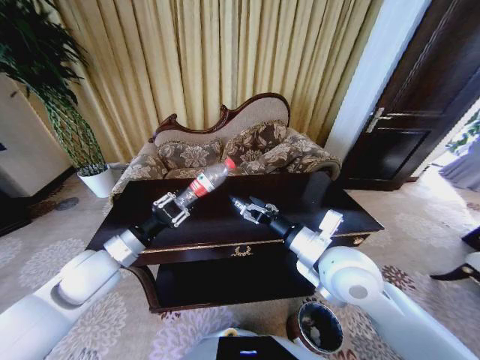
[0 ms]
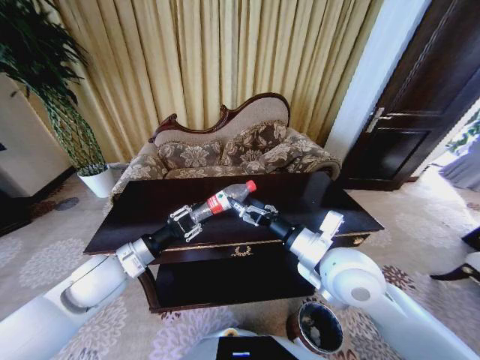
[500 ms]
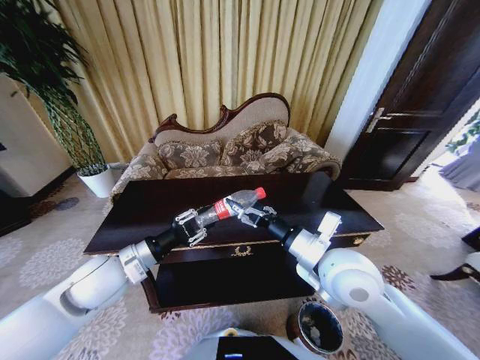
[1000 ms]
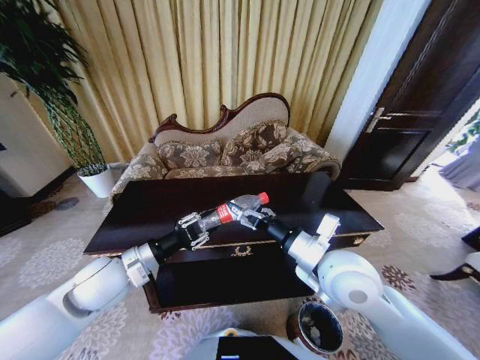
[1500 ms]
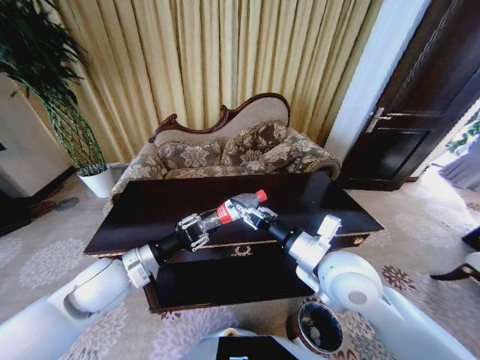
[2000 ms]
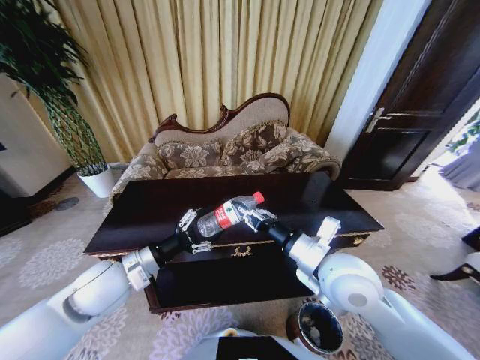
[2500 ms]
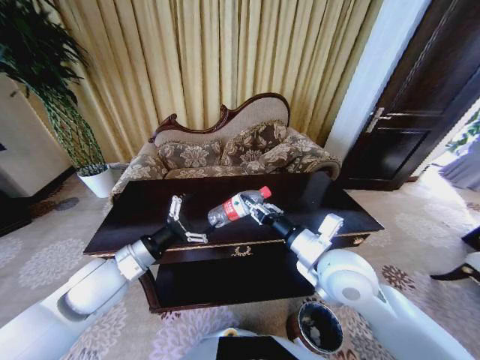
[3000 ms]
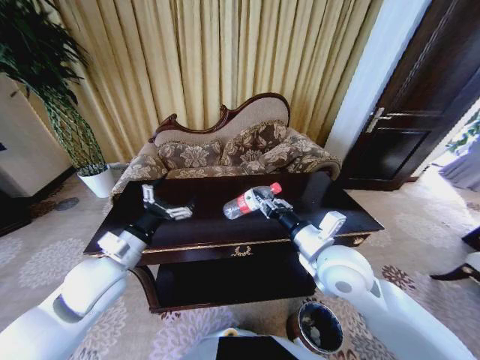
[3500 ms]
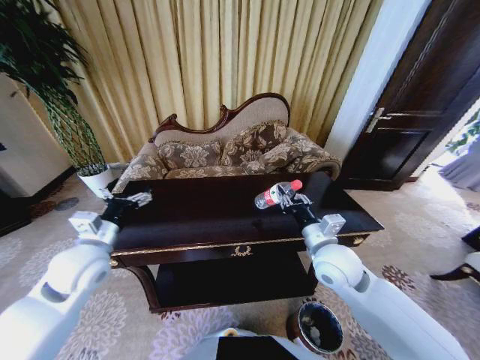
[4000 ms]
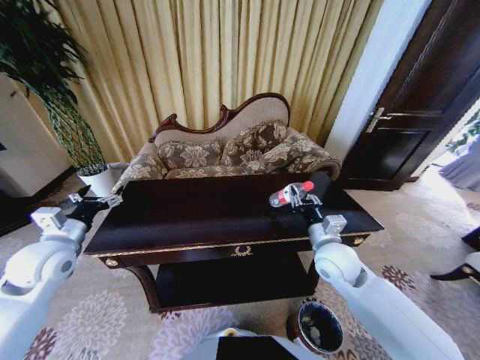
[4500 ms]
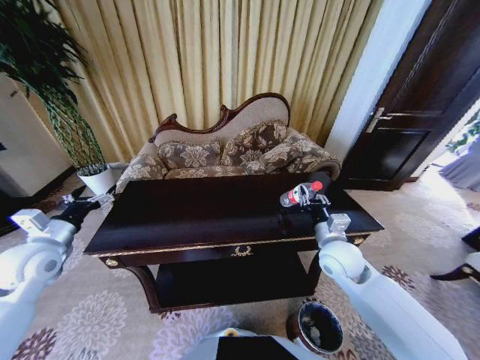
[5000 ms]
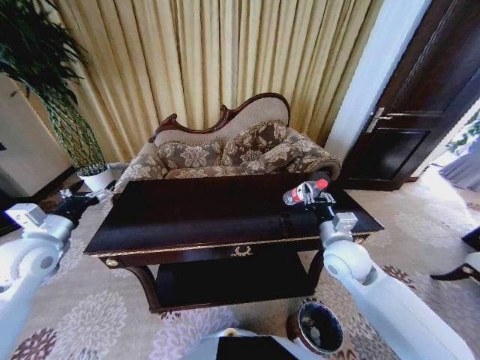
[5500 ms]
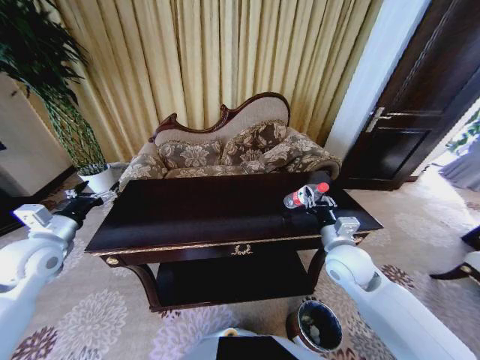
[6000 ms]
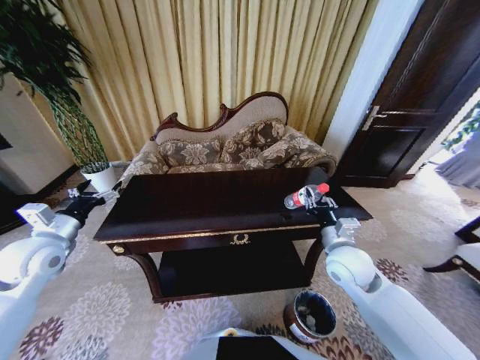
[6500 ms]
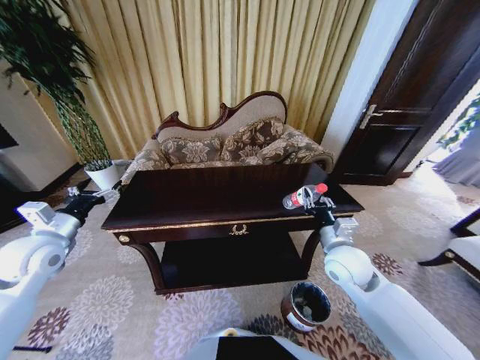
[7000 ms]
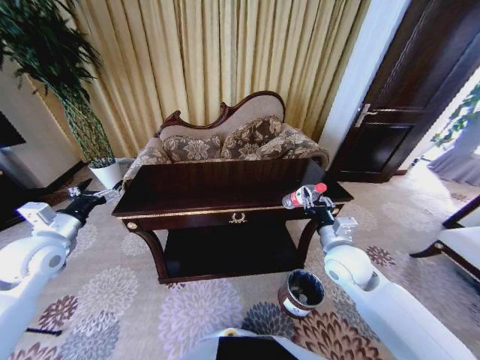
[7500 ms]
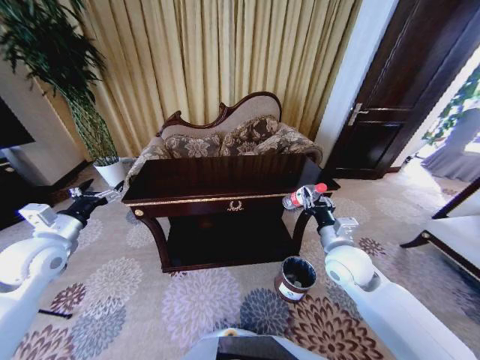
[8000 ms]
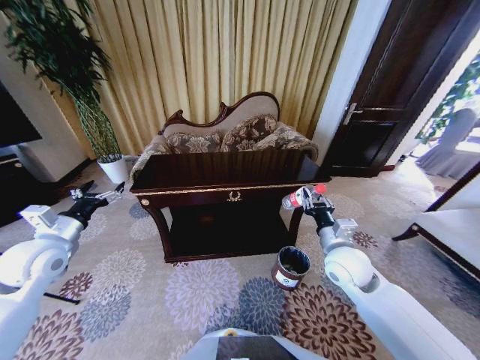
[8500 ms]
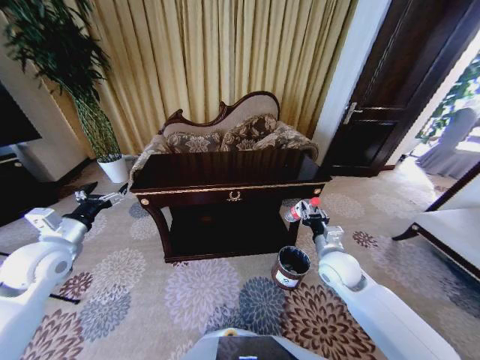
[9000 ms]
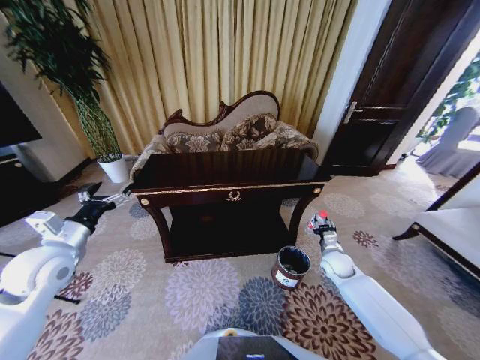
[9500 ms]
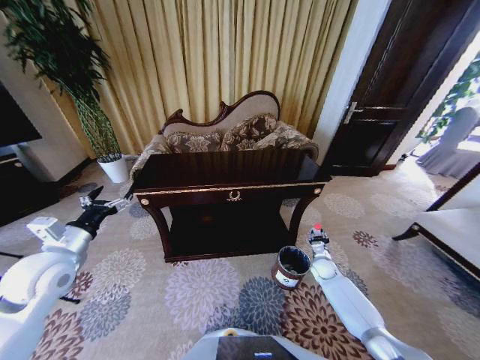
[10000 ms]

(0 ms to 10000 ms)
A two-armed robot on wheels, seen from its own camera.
Task of the whole recording: Move to the front of the table and place the trash on the table into the trash bin.
0 ms - 2000 ms: The right gripper closes its fingers.
2000 ms - 4000 ms: The right gripper is displaced downward by some 5 cm; the left gripper is displaced to the left by some 5 cm, and opens up.
4000 ms - 6000 ms: The left gripper shifts roughly 10 cm to the left; the right gripper moves approximately 5 cm.
8000 ms - 10000 ms: The right gripper heads downward, covering roughly 30 cm.

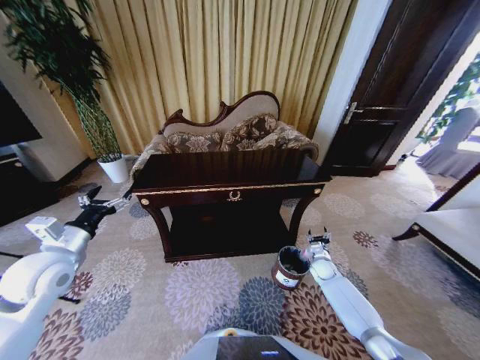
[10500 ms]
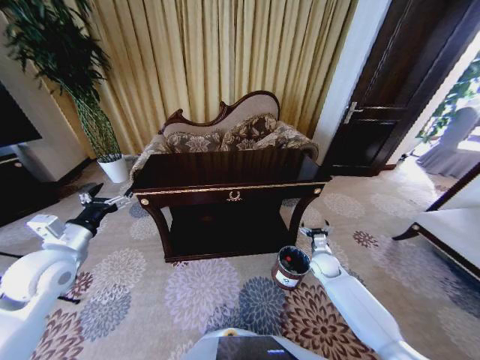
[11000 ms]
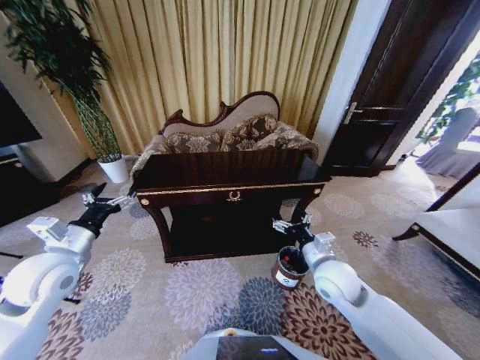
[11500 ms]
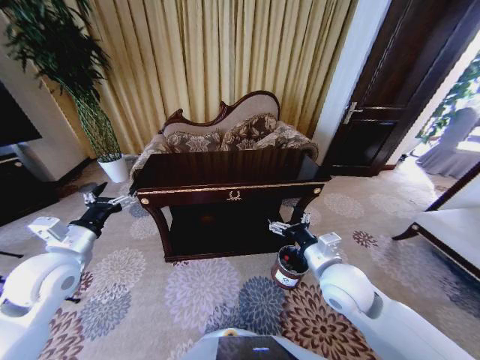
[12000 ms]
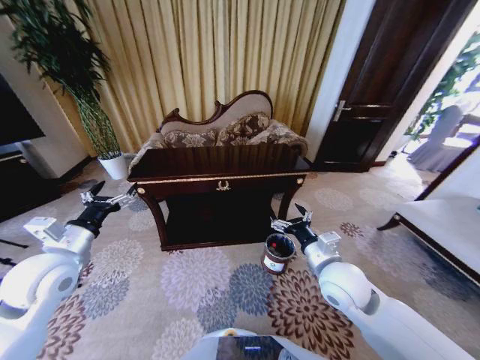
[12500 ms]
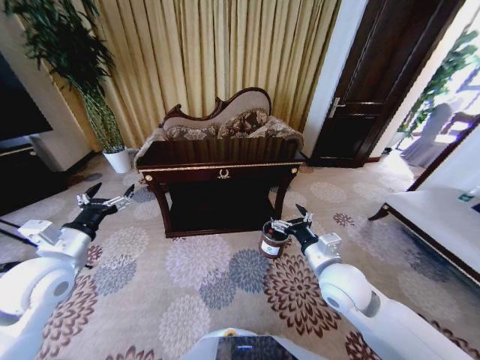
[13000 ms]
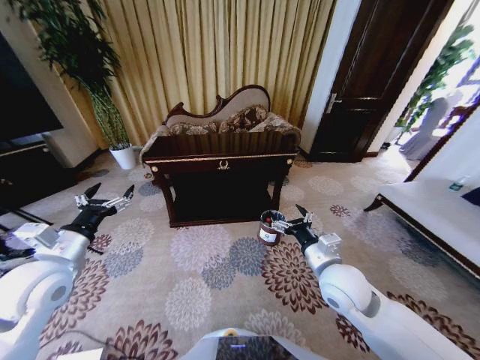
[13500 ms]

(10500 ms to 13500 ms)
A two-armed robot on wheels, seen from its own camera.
Task of the whole recording: Move to the front of the table and place the trash on the table into the trash bin.
10500 ms - 12000 ms: The right gripper shifts some 35 cm upward, to the left and backward.

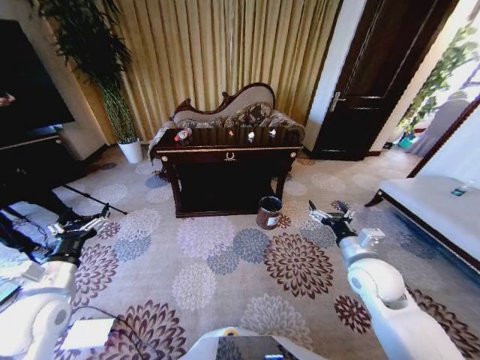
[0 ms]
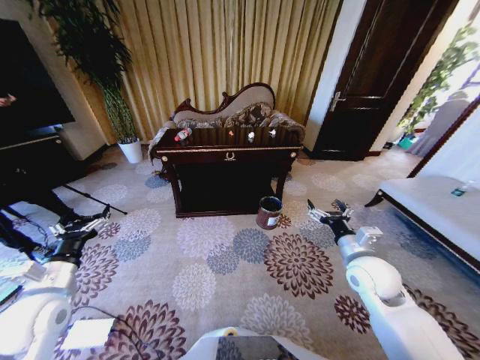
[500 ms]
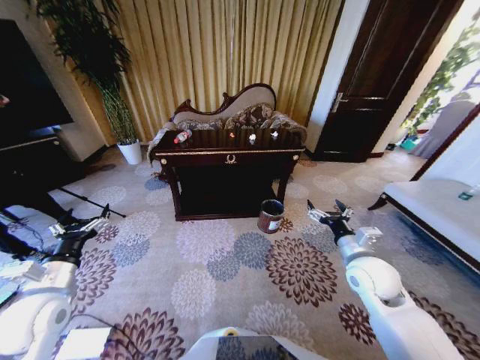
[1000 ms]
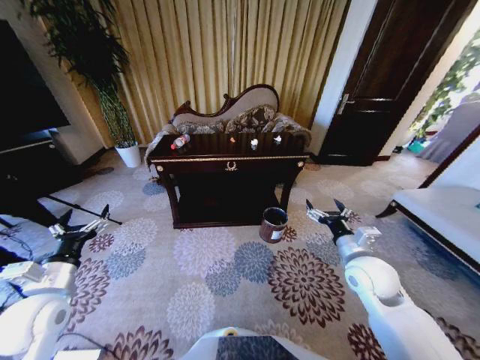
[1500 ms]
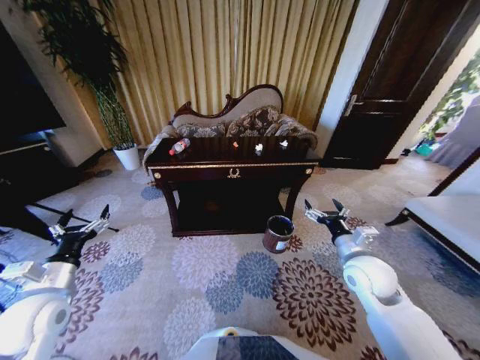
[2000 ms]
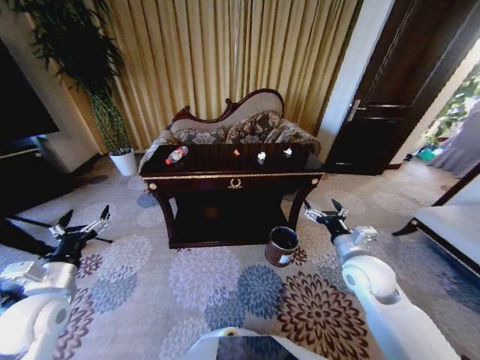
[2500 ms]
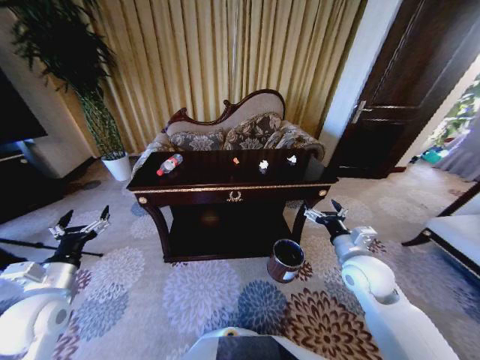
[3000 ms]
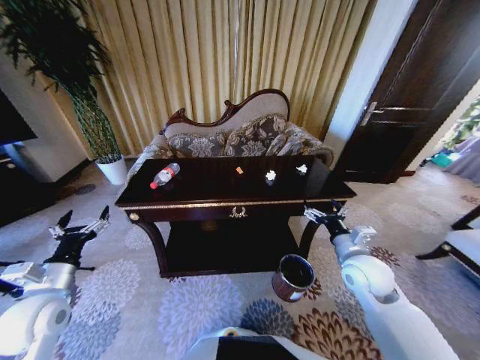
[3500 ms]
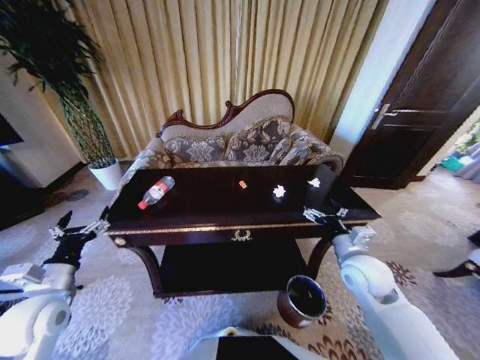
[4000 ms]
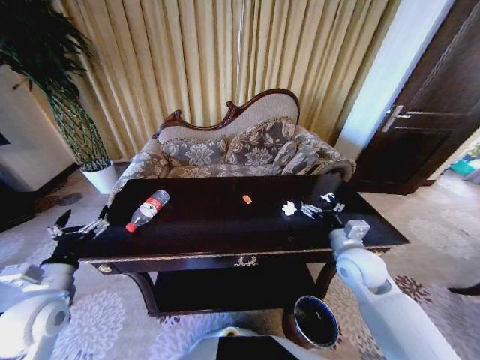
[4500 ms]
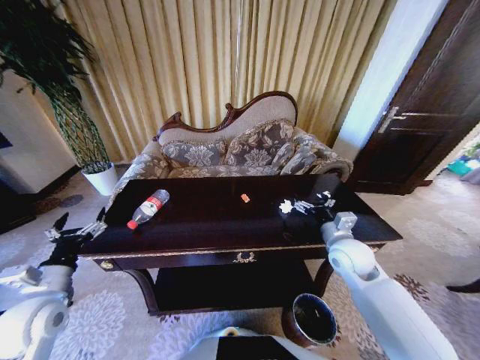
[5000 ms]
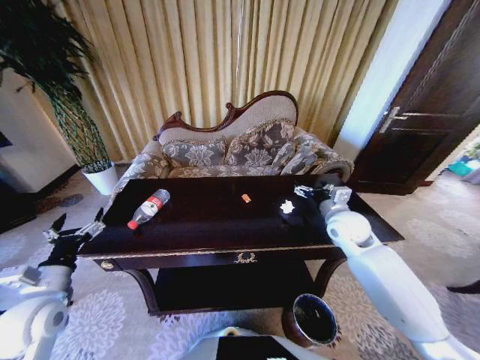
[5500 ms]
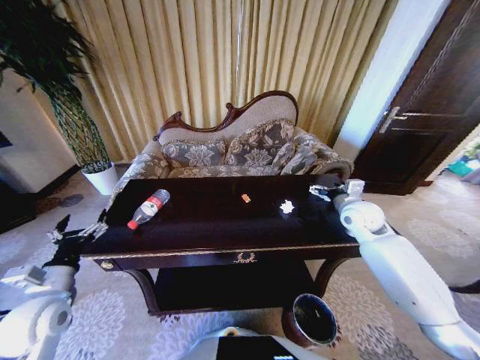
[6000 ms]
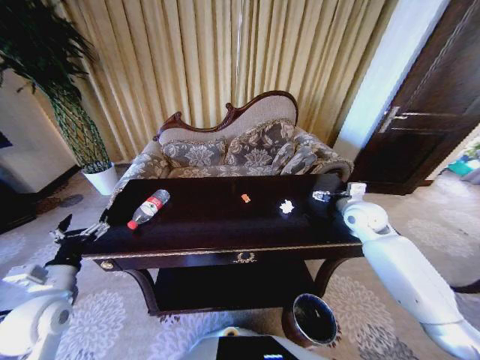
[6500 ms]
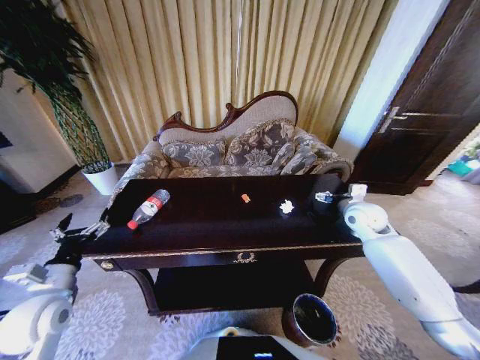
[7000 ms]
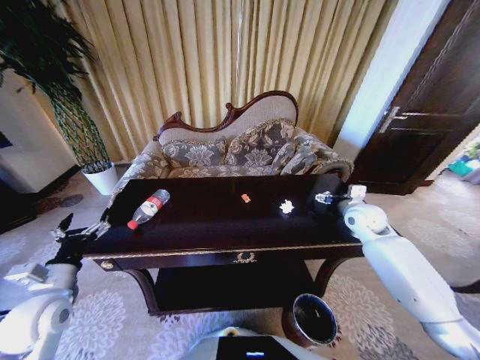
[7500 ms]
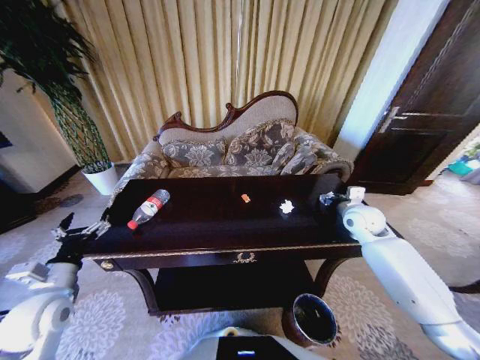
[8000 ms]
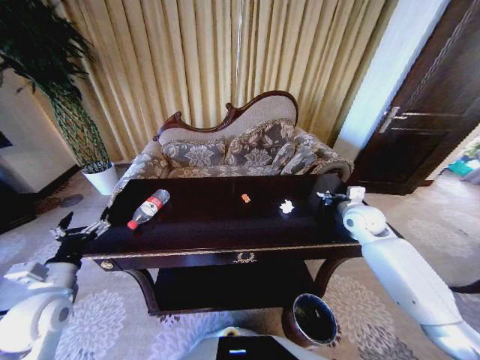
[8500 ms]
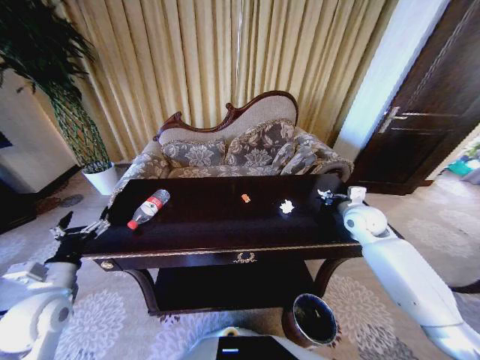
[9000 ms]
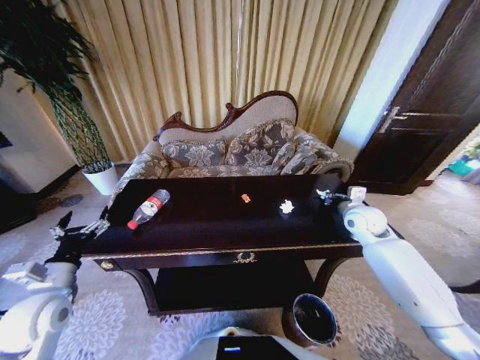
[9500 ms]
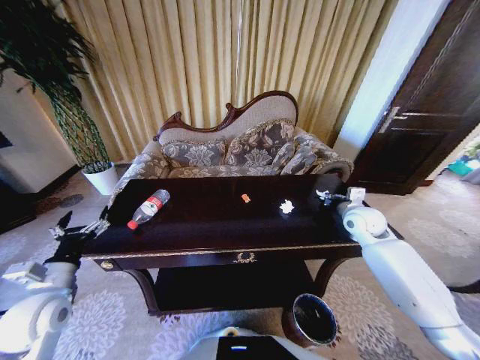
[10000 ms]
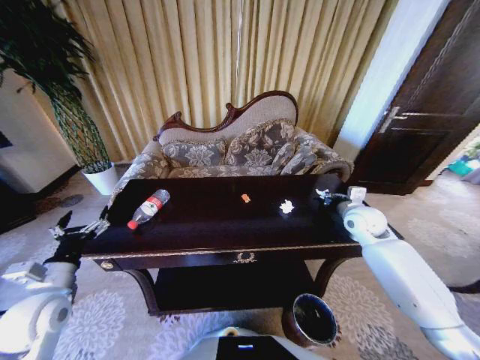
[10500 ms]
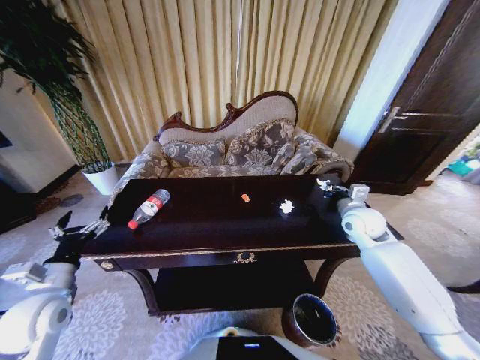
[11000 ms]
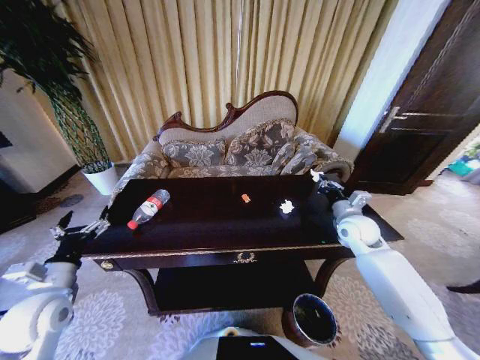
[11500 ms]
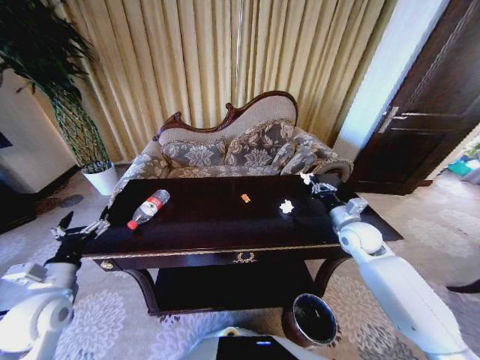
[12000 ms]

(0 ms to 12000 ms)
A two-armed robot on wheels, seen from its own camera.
Task of the whole recording: Move to the front of the table and place the trash on the table into the trash bin.
4000 ms - 6000 ms: The right gripper is displaced forward by some 15 cm.
6000 ms - 8000 ms: The right gripper closes up.
8000 ms - 10000 ms: The right gripper closes its fingers.
10000 ms - 12000 ms: The right gripper moves approximately 5 cm.

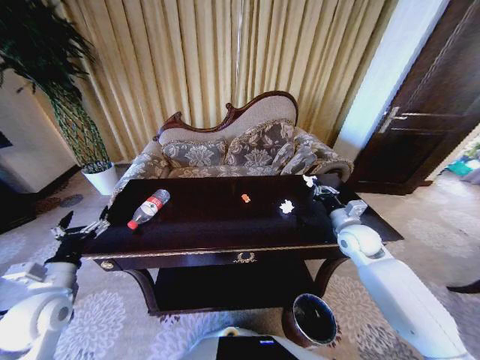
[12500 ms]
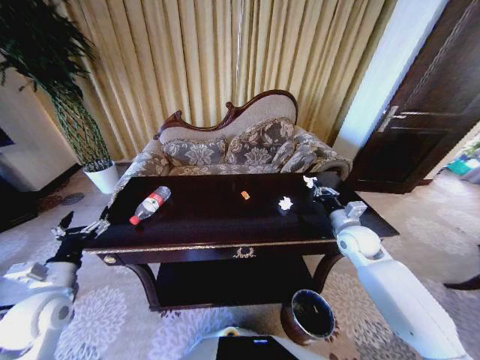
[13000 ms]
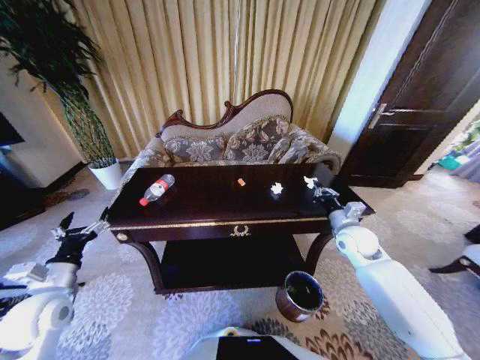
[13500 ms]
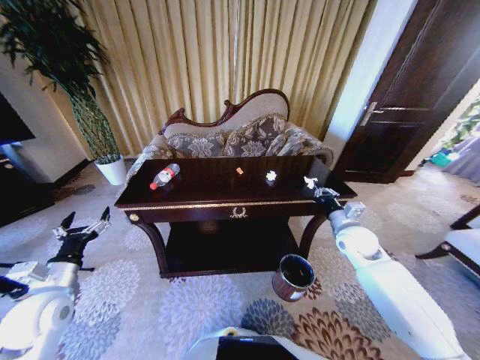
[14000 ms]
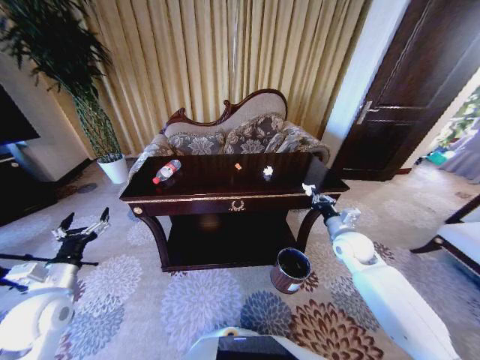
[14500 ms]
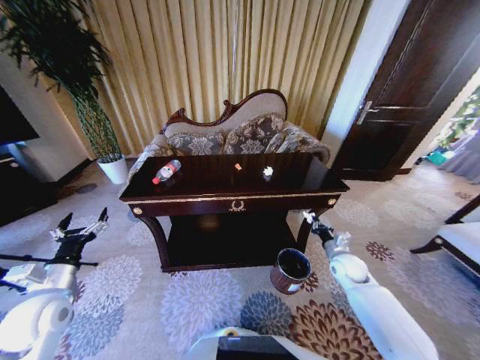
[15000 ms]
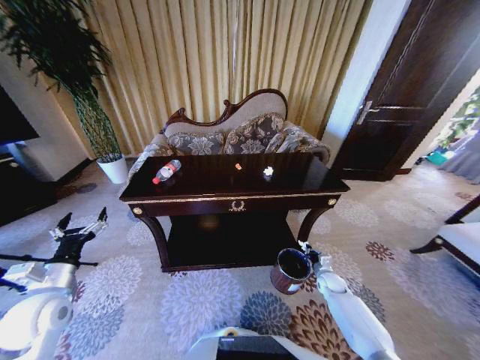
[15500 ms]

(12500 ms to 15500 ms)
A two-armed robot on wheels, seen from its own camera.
Task of the whole recording: Move to the front of the table and place the trash on the table into the trash bin.
14000 ms - 15500 ms: The right gripper travels downward by roughly 25 cm.
